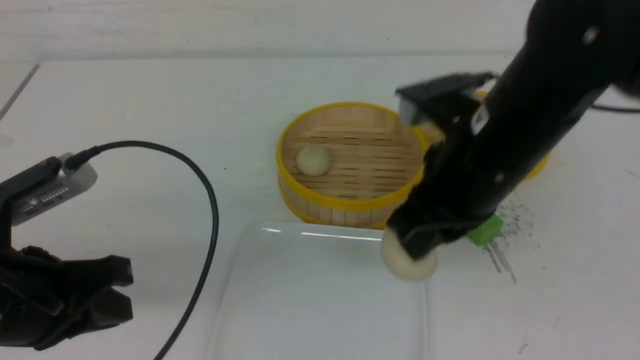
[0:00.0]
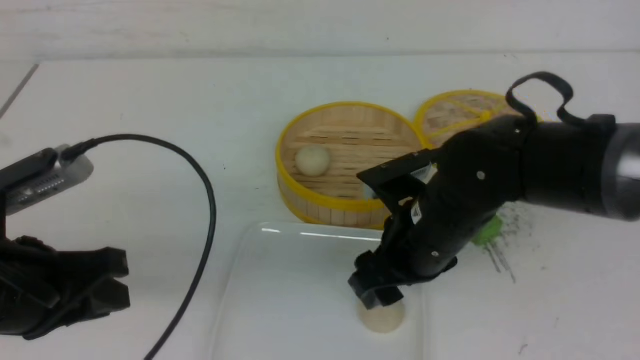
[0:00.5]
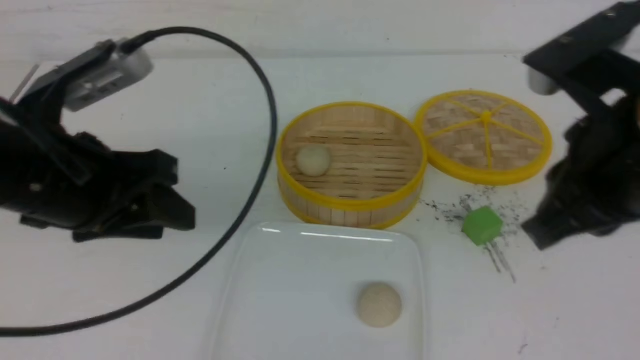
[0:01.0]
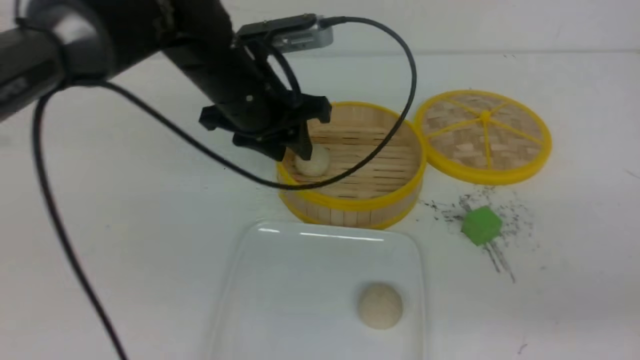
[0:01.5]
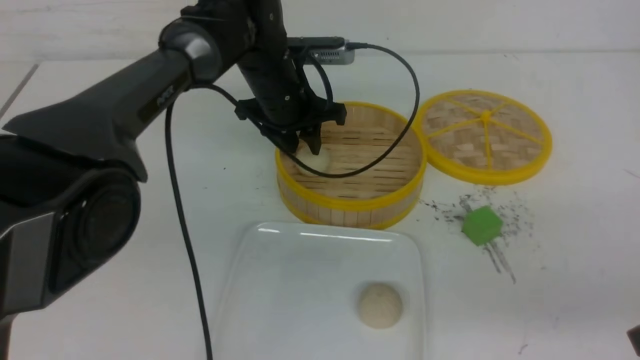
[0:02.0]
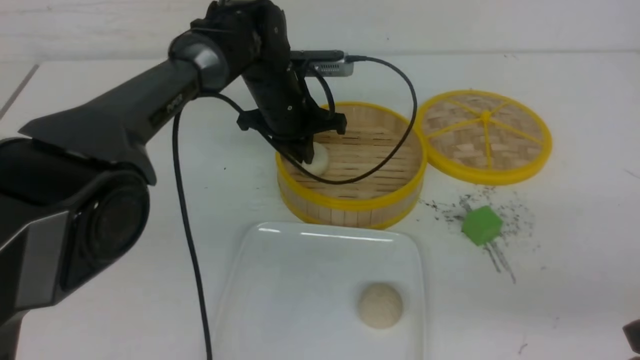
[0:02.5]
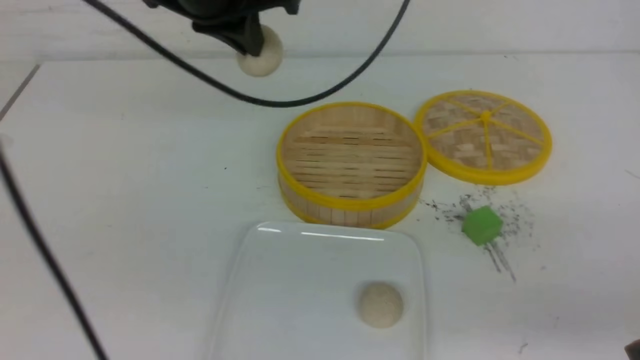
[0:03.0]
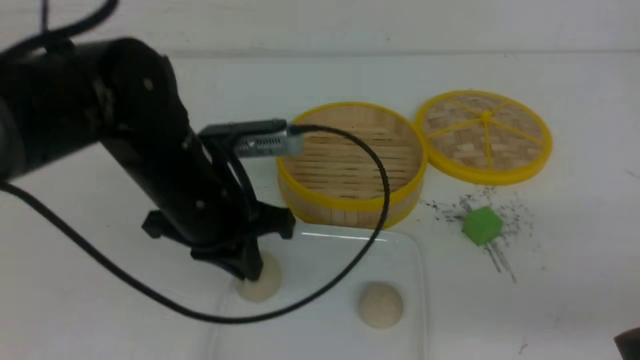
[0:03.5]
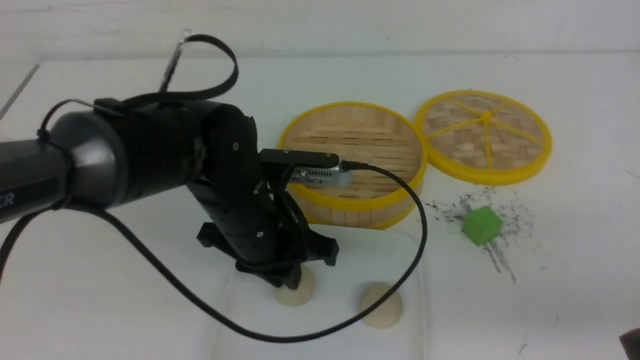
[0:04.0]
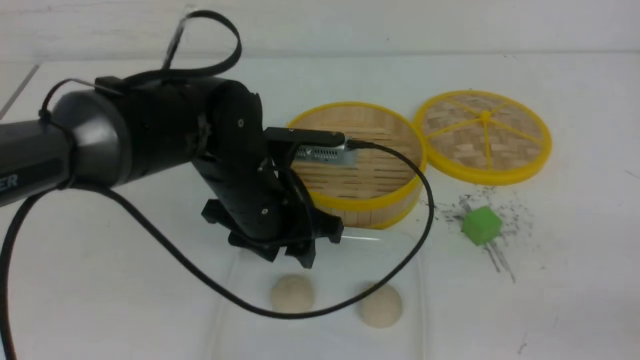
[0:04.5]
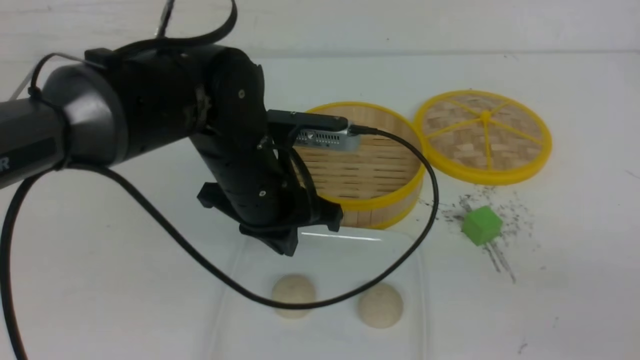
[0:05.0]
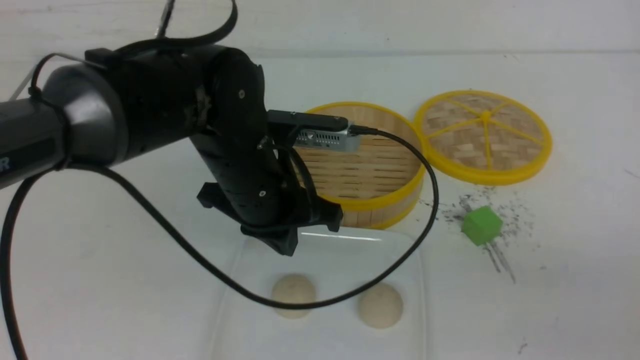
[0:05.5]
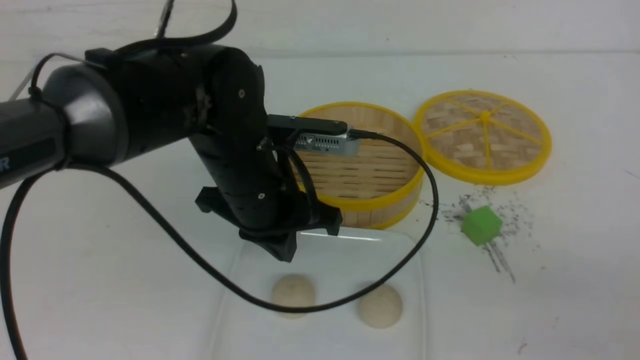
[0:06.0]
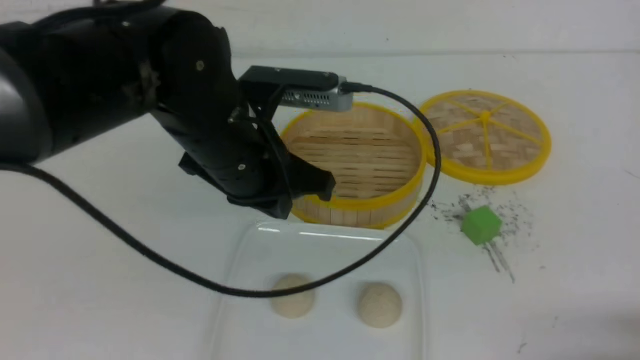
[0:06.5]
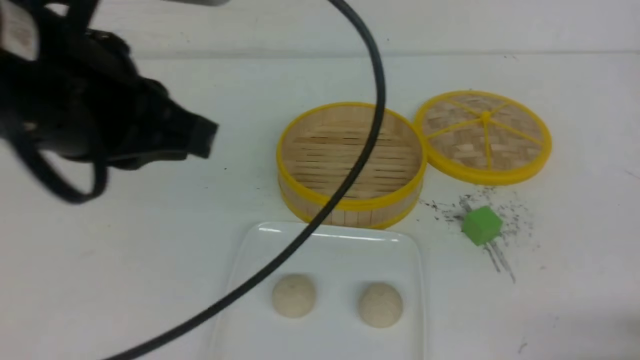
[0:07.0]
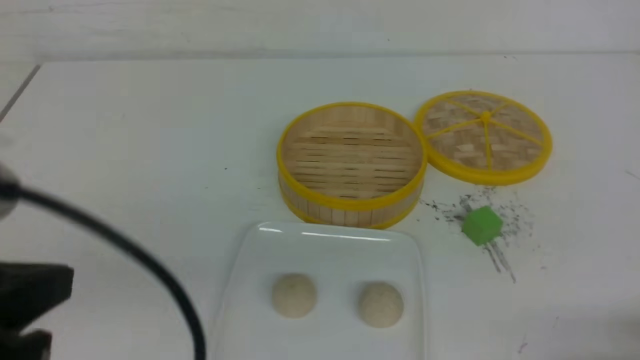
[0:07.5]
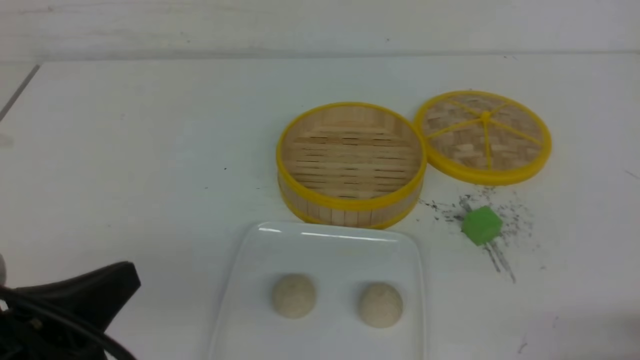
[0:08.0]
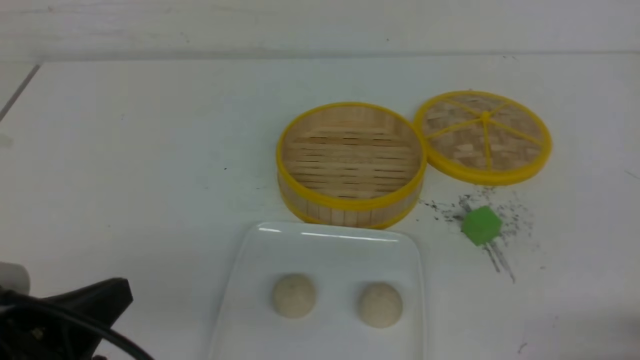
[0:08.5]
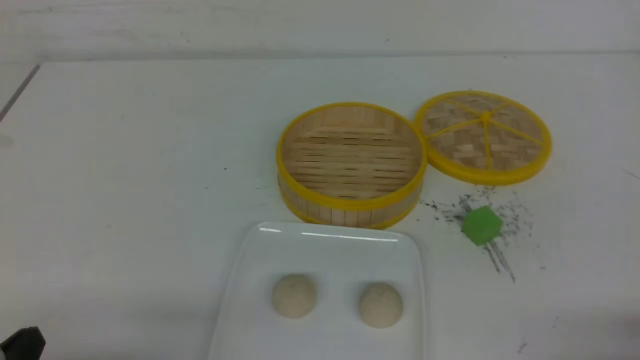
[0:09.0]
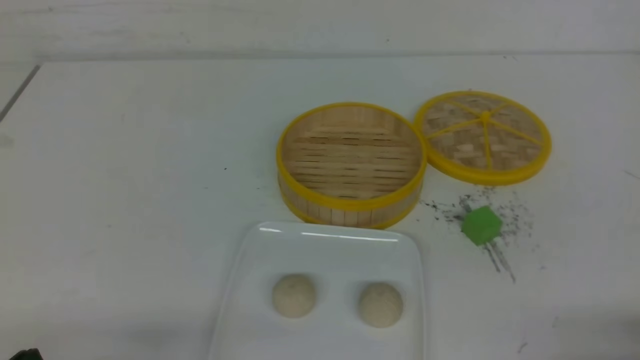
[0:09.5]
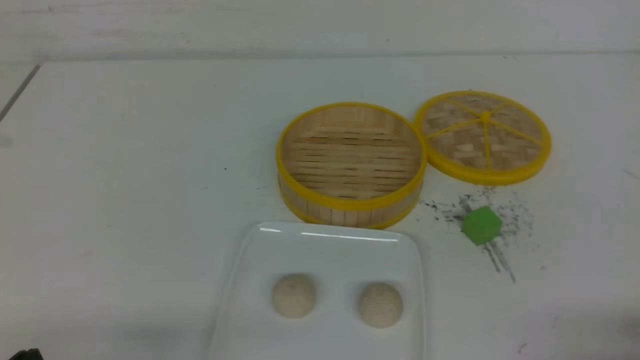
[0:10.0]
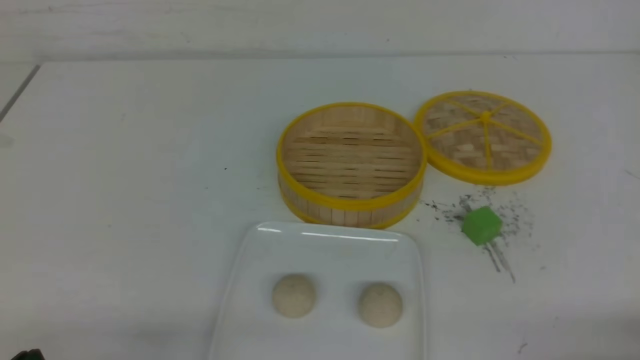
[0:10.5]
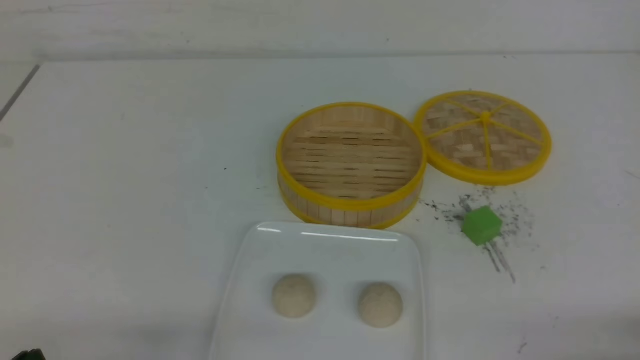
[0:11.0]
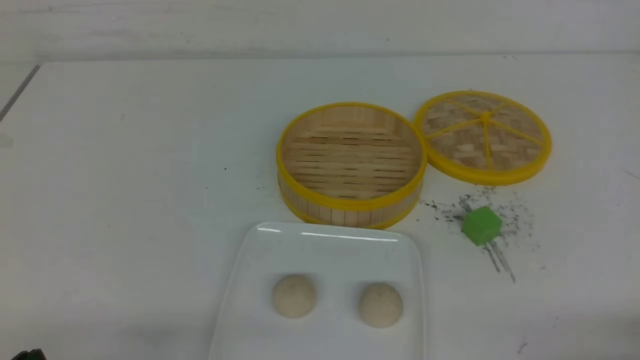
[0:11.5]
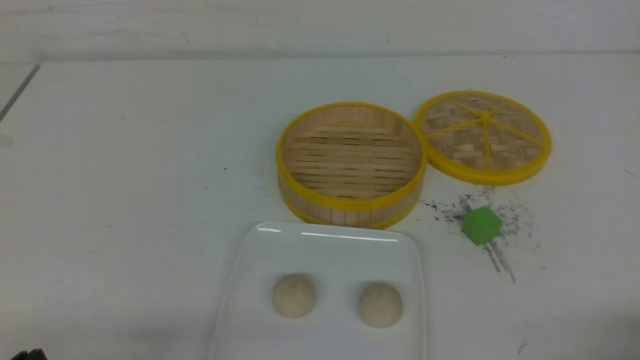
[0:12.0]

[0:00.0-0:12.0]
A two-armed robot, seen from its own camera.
Step, 0:01.0 to 0:02.5: use the left arm to grab the steamed stuffed bun that is closest to it.
Step, 0:03.0 to 0:04.0: use the left arm to put the steamed stuffed bun into the plate.
0:00.0 to 0:02.0: The left gripper goes about 35 cm forward and to the right, and opens. Meanwhile the right gripper goes roughly 20 cm backward and to the right, and opens, then closes once more.
0:02.0 to 0:04.0: The left gripper is displaced backward by about 20 cm, and closes, then reopens.
0:04.0 to 0:06.0: The right gripper goes approximately 5 cm backward; the left gripper closes.
0:06.0 to 0:08.0: The right gripper goes some 10 cm downward. The left gripper travels backward and to the left by about 25 cm.
0:08.0 to 0:10.0: The left gripper travels downward by roughly 10 cm.
0:10.0 to 0:12.0: The two grippers keep their place.
